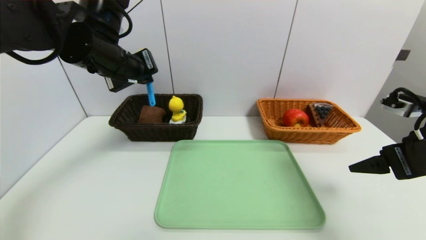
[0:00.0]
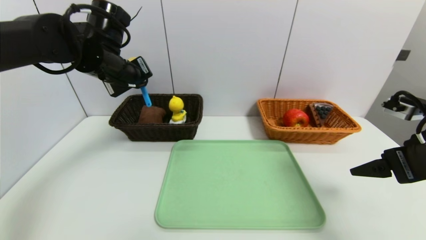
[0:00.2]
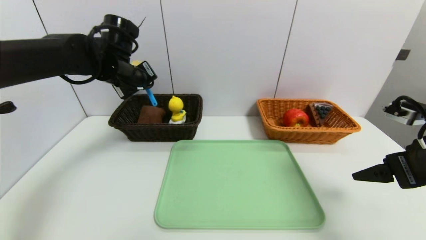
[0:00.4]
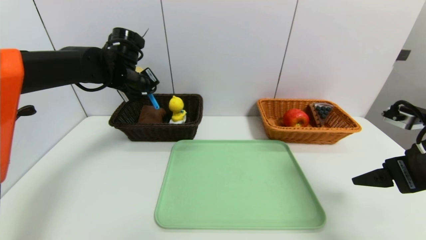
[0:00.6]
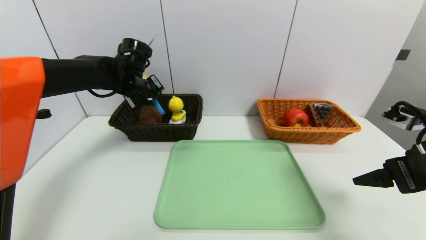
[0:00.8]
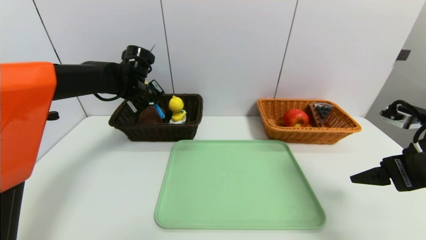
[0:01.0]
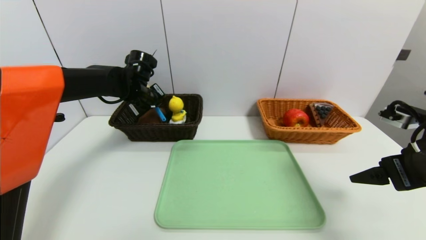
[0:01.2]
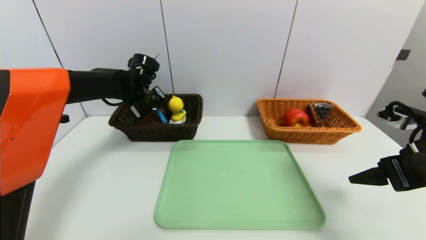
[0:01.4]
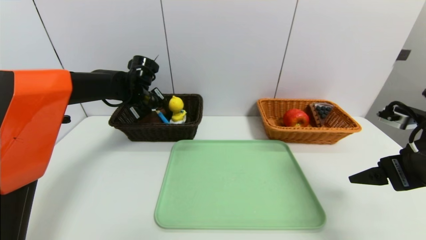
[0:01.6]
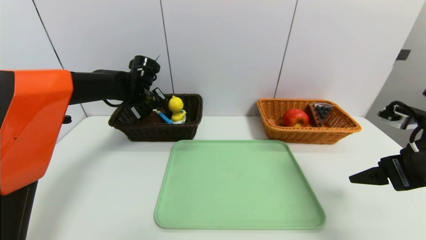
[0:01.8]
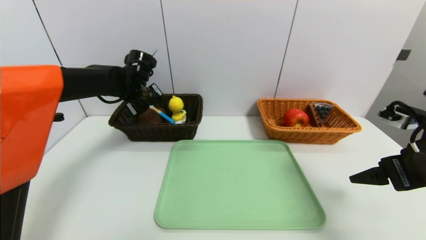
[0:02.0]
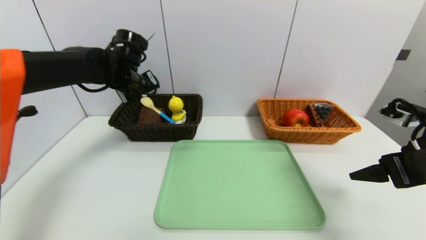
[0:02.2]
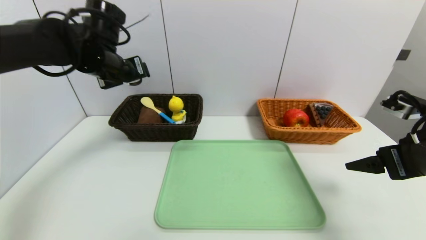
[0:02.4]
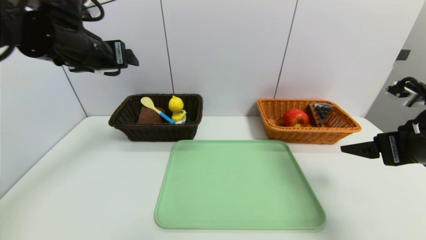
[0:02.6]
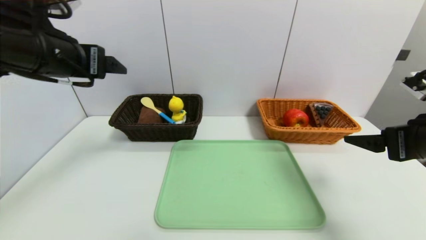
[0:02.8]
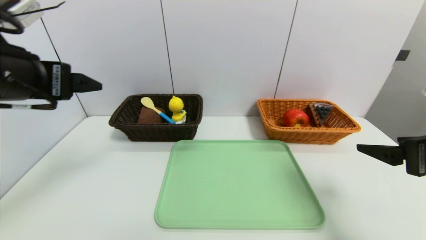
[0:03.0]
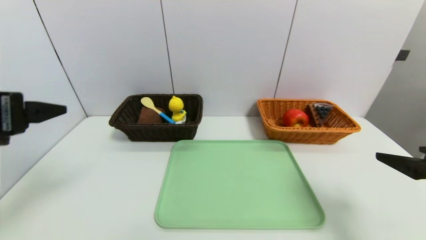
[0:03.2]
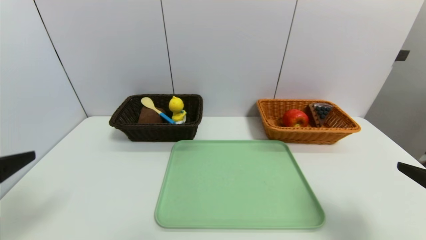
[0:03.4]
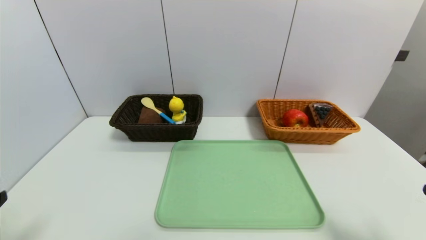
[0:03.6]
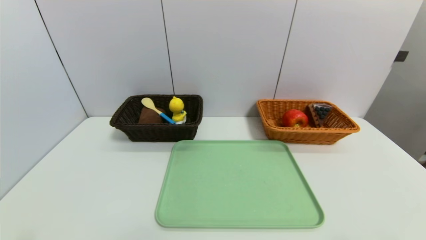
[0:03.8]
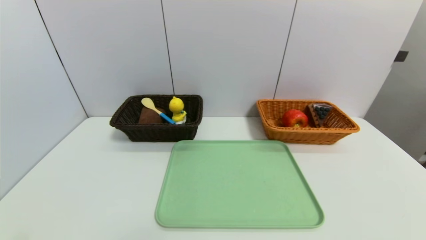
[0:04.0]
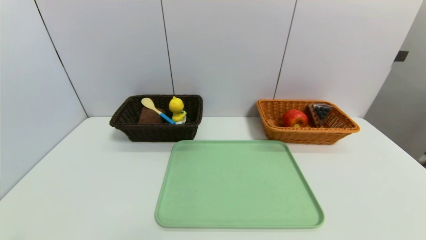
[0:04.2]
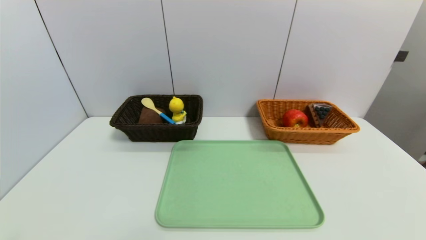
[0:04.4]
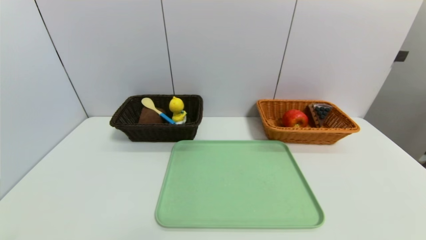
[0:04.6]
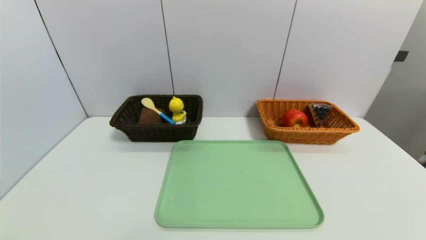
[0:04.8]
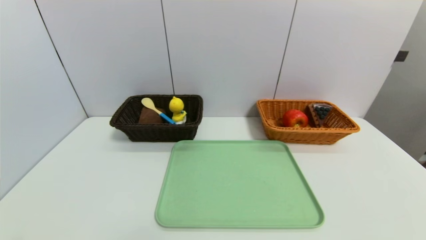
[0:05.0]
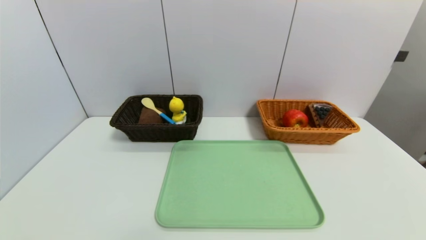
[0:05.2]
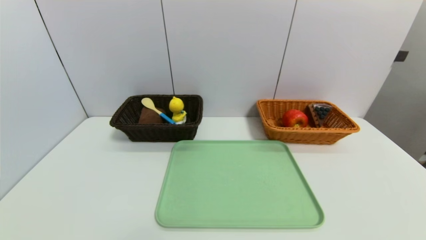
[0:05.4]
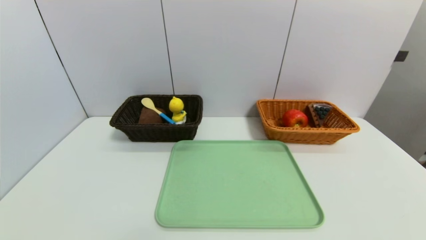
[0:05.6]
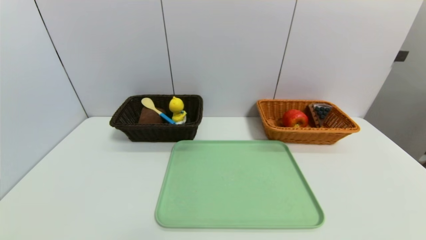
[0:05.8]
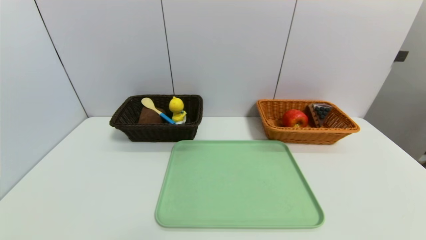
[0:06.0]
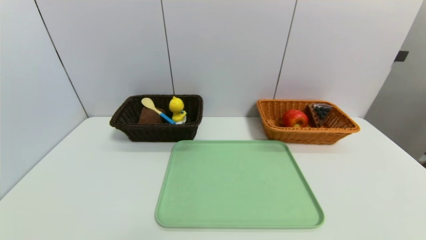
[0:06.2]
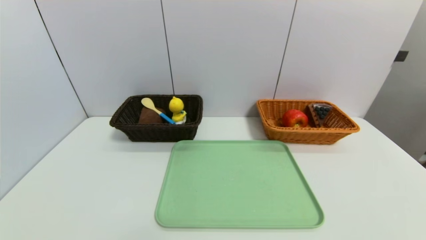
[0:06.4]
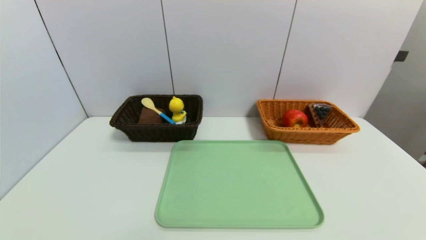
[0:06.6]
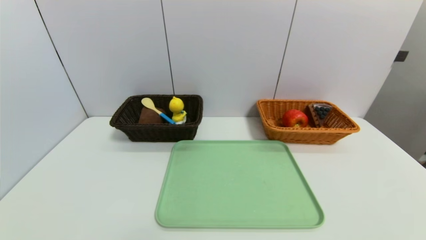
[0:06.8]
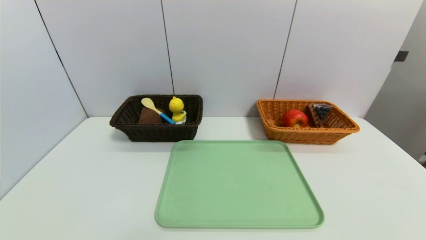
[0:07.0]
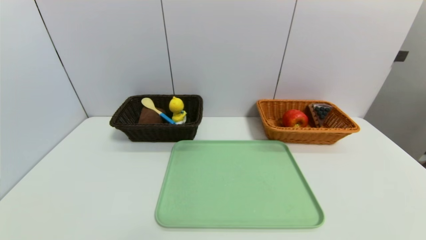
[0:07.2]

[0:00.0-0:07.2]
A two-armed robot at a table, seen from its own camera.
Task of the whole recording: place the food in the right basket with the right gripper, and place the non food items in the left basket with the left gripper.
Step, 0:00.0 to 0:02.2: Grasp the spoon and put it in the left basket.
0:00.0 to 0:01.4: The left gripper shifts approximately 15 cm downward and forward.
0:01.4 to 0:02.8: The left gripper is displaced backward and upward by approximately 25 cm, and opens its fingers.
0:02.8 to 0:04.4: Both grippers travel together backward and downward, about 30 cm.

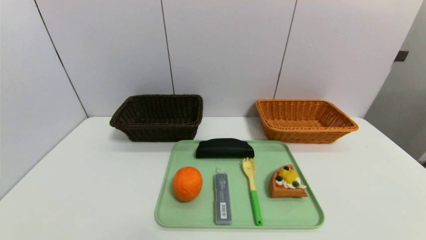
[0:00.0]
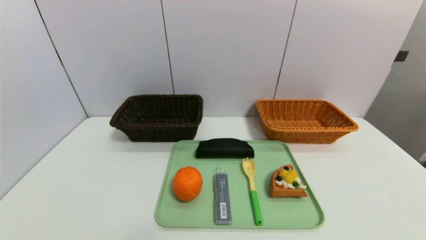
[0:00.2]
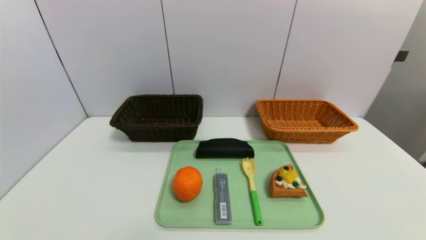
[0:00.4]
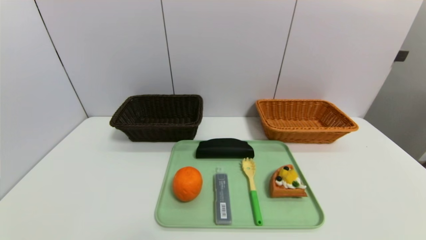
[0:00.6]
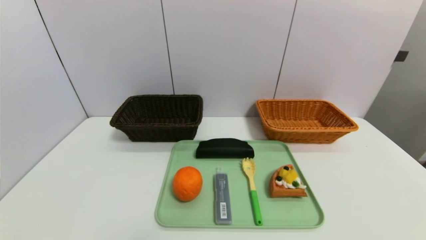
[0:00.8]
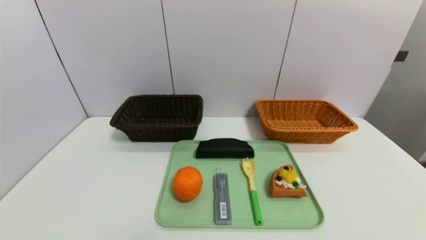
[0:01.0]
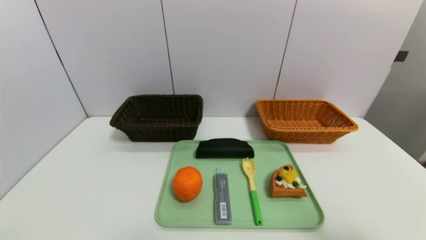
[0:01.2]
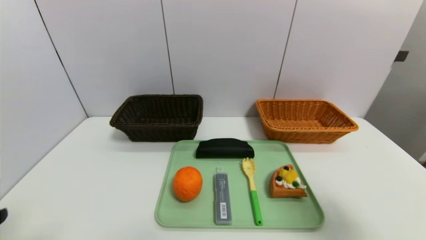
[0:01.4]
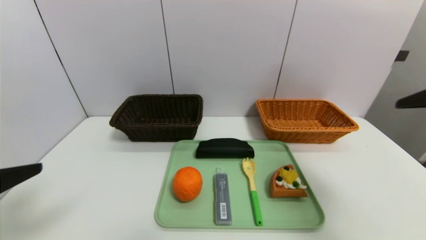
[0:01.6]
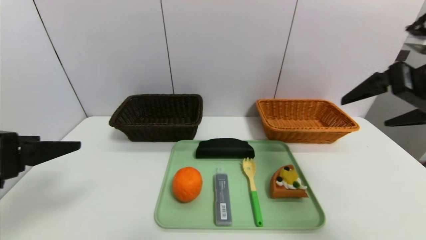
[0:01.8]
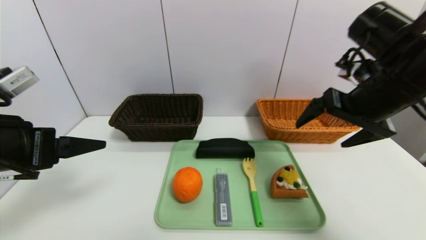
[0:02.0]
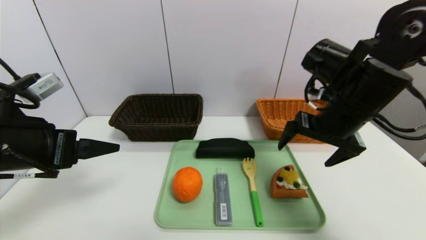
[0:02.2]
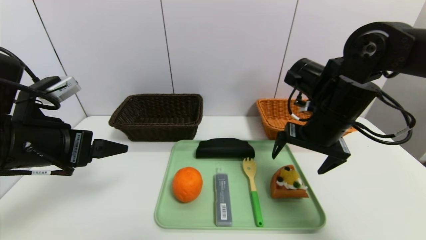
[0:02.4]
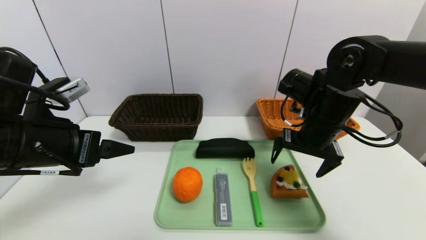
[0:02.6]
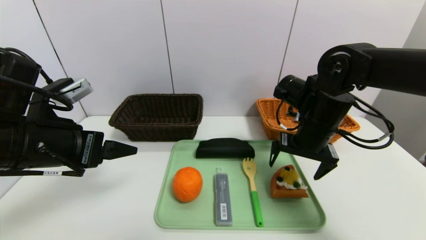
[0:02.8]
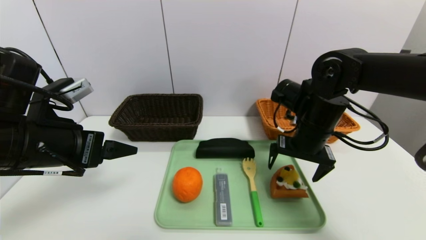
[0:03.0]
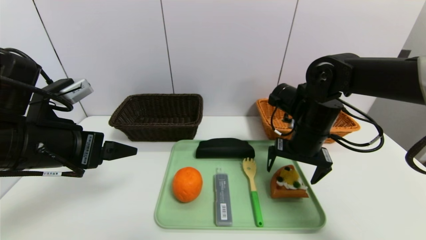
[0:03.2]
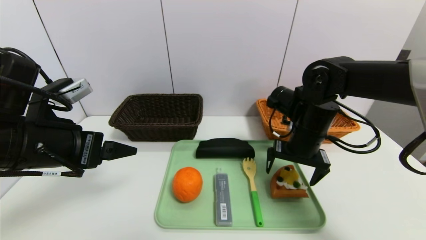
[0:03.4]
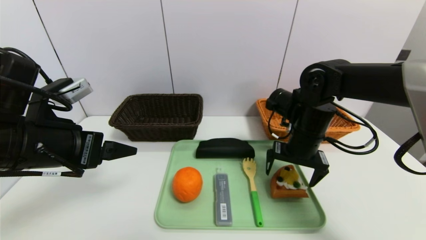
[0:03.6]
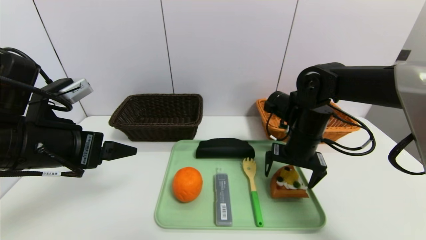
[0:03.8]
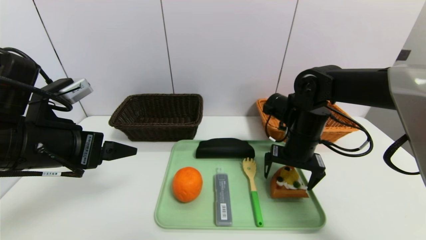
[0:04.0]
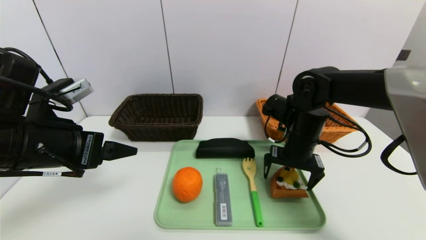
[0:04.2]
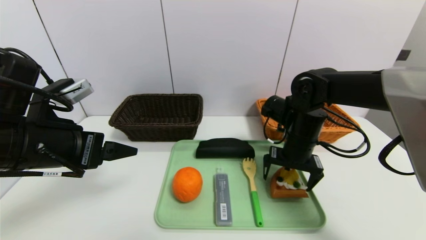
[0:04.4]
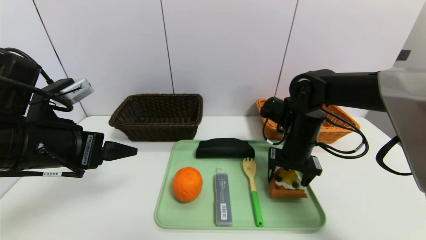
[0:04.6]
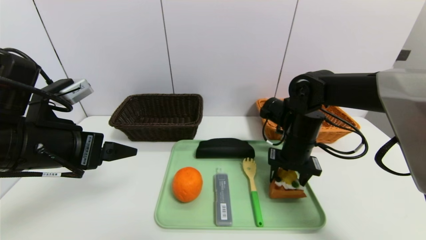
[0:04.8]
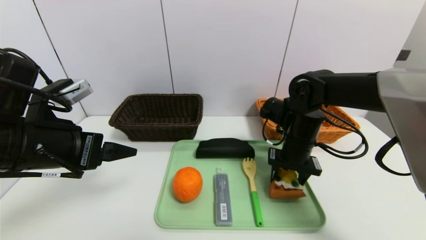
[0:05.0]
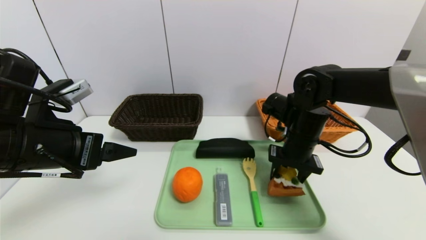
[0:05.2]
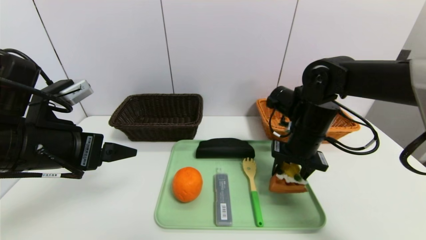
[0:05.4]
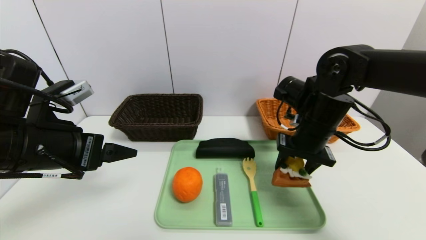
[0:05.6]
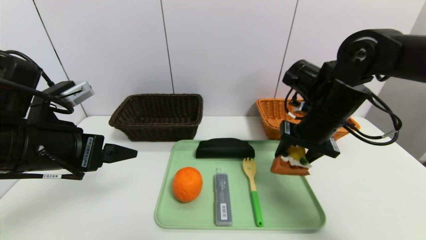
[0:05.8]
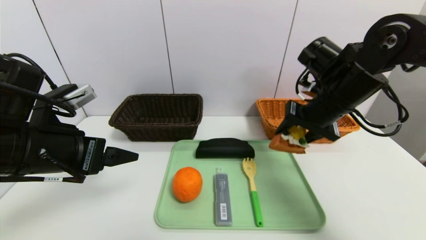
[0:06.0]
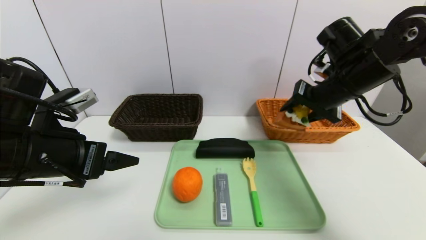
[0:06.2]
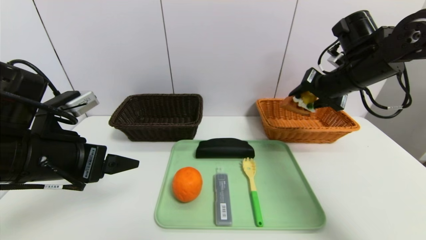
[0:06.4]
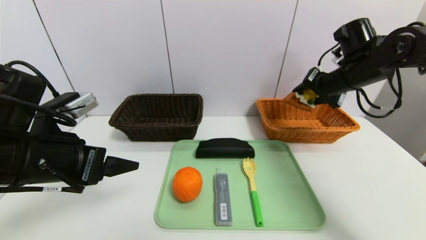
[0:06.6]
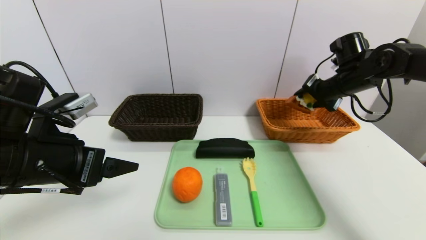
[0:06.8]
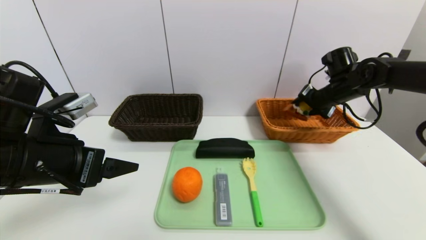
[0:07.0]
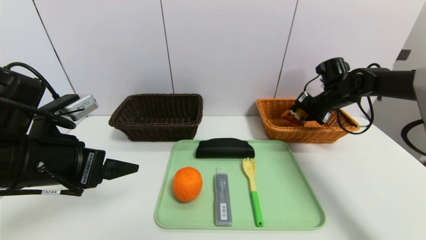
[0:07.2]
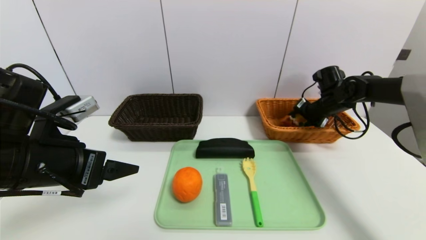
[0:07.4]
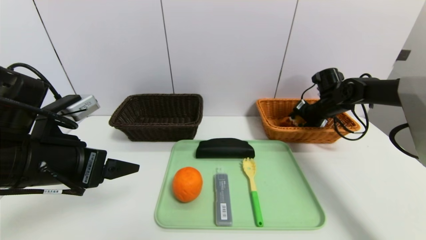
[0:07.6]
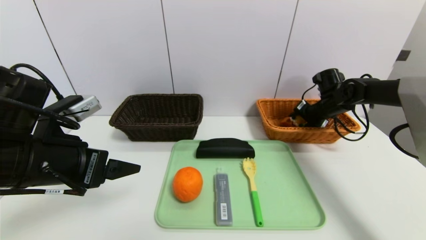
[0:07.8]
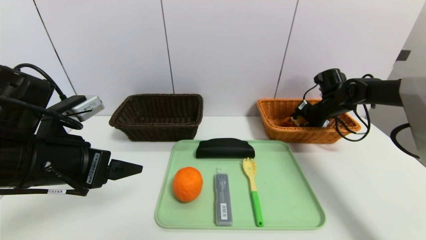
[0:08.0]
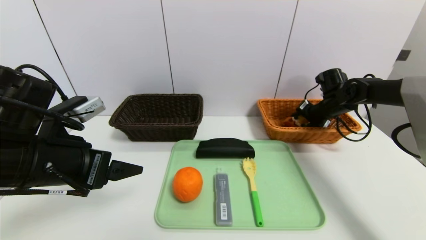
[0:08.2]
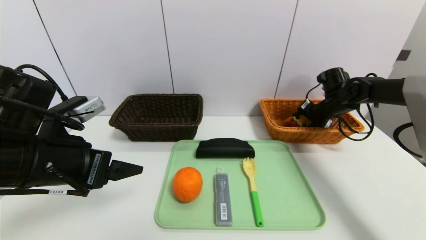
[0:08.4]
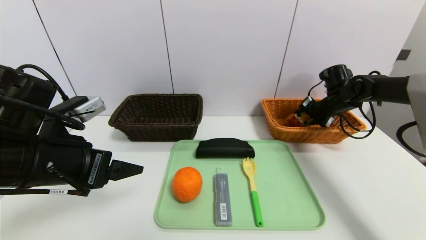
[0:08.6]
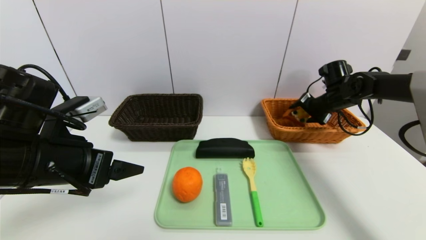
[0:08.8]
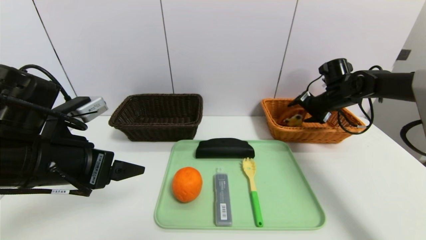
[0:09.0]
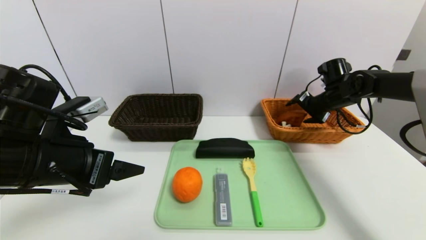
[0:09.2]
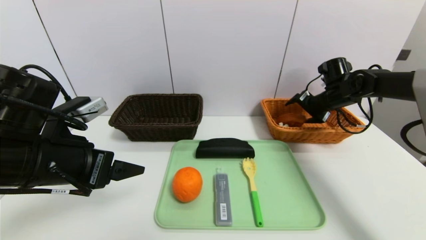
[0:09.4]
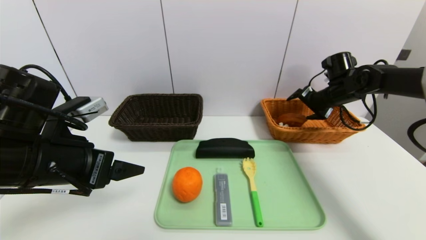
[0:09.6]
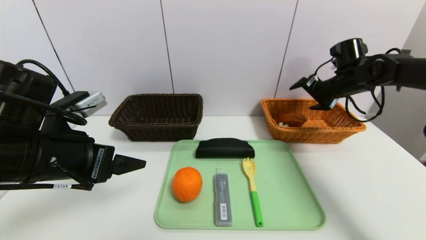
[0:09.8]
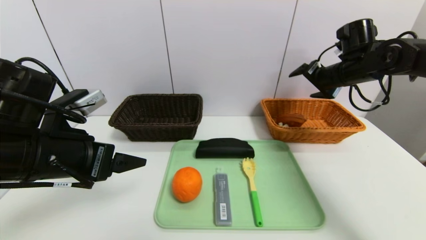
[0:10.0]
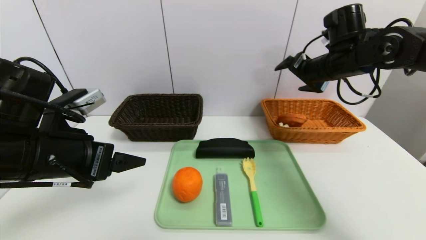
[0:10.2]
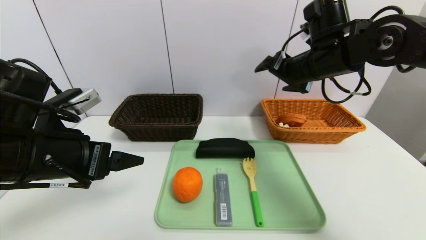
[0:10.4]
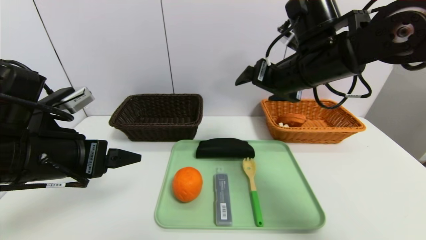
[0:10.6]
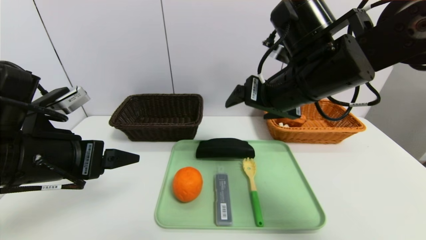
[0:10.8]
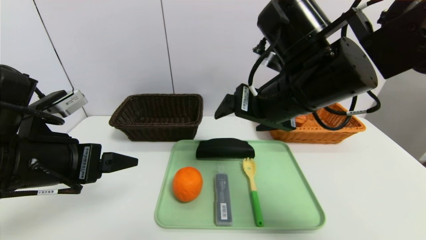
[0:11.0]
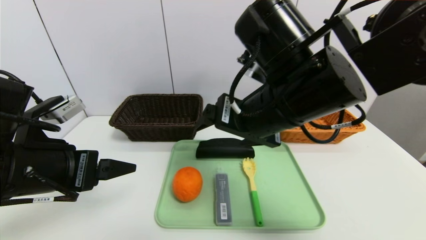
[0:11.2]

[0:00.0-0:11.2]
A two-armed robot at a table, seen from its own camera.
Task of the whole recording: place the food in the right basket with the right gripper, and place the non food items in the left basket with the left gripper.
Step, 0:00.0 to 0:09.4: Grasp the waffle and put it in the right basket.
0:00.0 to 0:01.6: The grippers both shift upward and forward by approximately 25 cm.
0:01.6 to 0:03.2: The left gripper travels forward and to the right by roughly 10 cm, while the right gripper travels forward, downward and to the left by about 25 cm.
0:03.2 to 0:04.8: The right gripper closes.
0:04.8 to 0:06.4: The right gripper heads upward and to the right, covering some 15 cm.
0:06.4 to 0:08.0: The right gripper moves downward, forward and to the right, about 20 cm.
0:08.0 to 0:09.6: The right gripper heads upward, covering some 5 cm, and opens its fingers.
0:09.6 to 0:11.2: The right gripper moves to the left and backward, about 35 cm.
